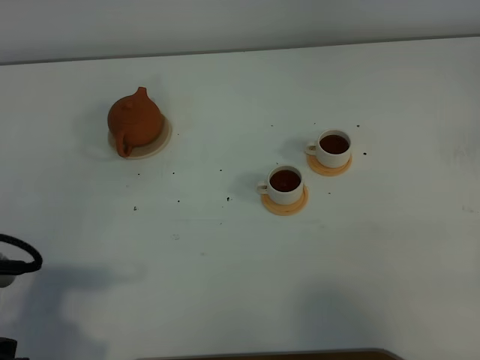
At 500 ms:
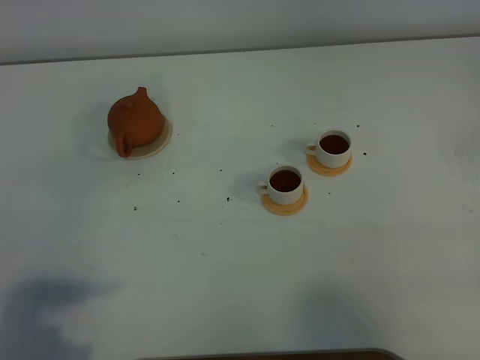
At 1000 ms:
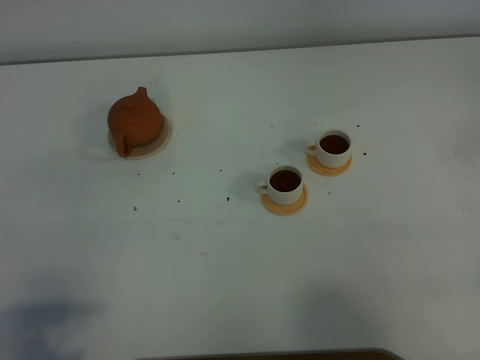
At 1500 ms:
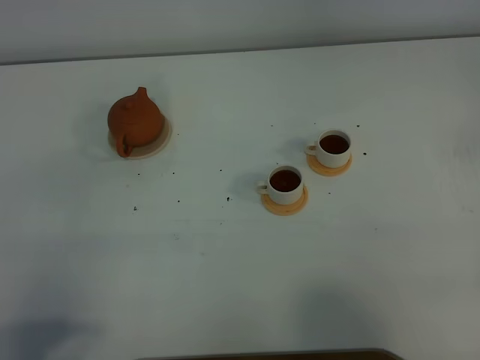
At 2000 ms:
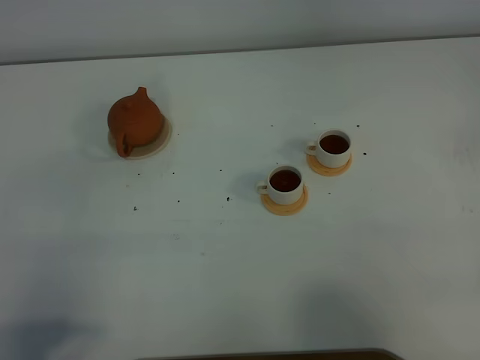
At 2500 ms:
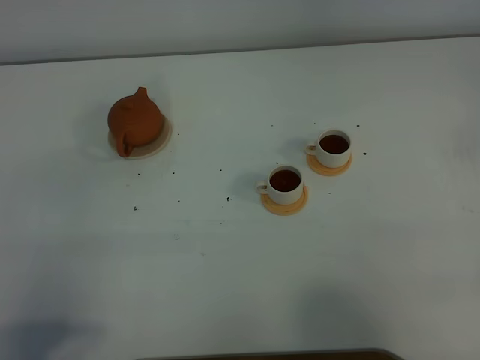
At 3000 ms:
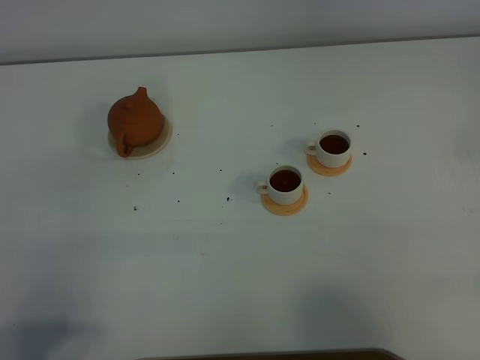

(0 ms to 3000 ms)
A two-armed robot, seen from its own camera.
Task of the whole recording: grasp the brown teapot and pour the tea into the two white teacups one by one, put the brown teapot back in its original place.
0 ms - 1500 ms: The left gripper is displaced backward by approximately 10 cm.
1500 ms - 3000 ms: The two grippers keep their place.
